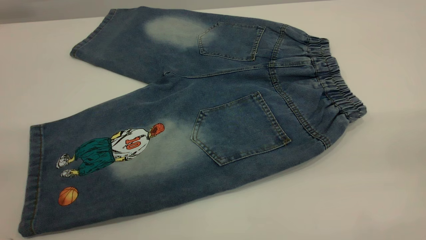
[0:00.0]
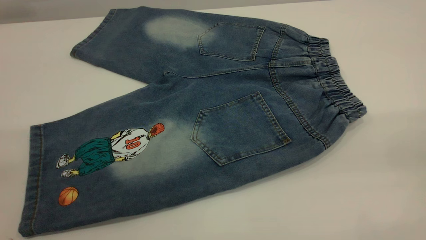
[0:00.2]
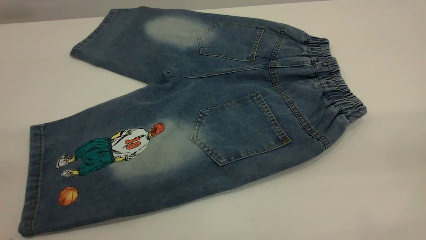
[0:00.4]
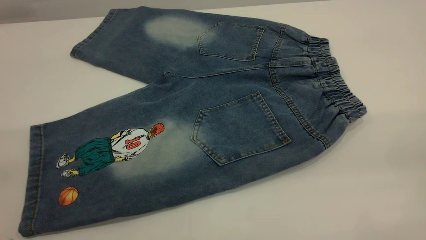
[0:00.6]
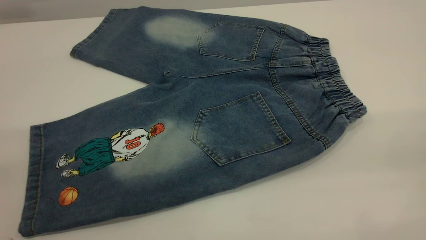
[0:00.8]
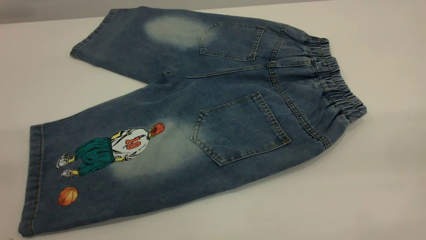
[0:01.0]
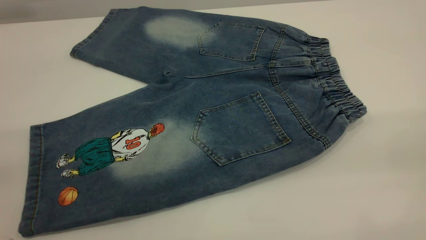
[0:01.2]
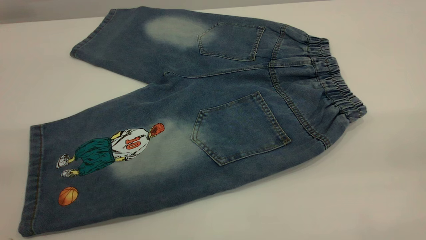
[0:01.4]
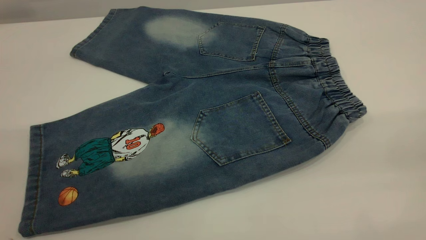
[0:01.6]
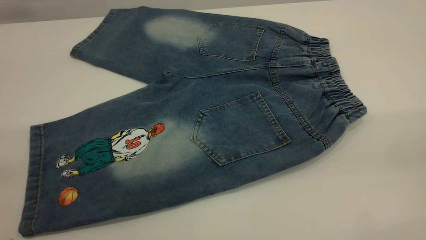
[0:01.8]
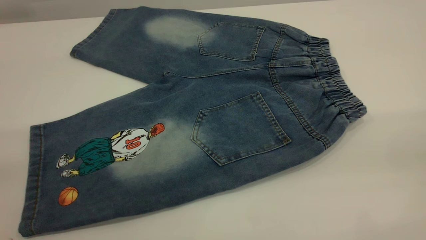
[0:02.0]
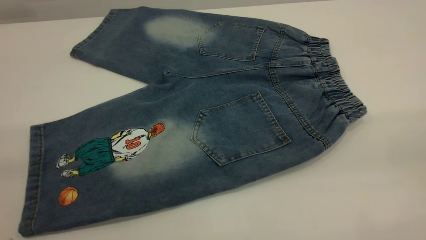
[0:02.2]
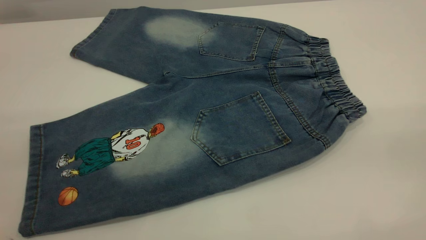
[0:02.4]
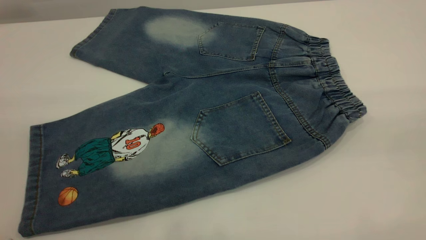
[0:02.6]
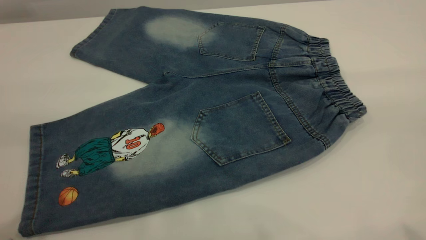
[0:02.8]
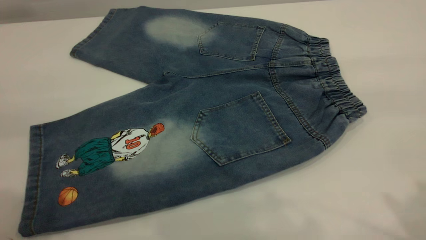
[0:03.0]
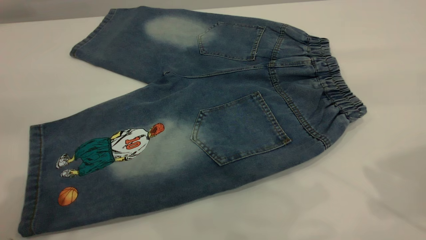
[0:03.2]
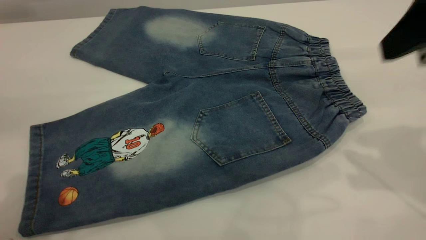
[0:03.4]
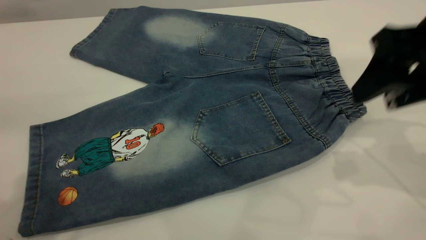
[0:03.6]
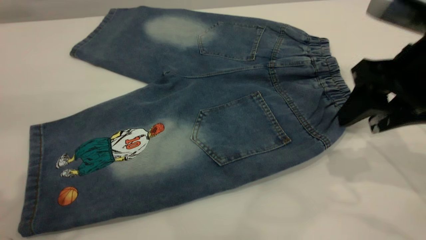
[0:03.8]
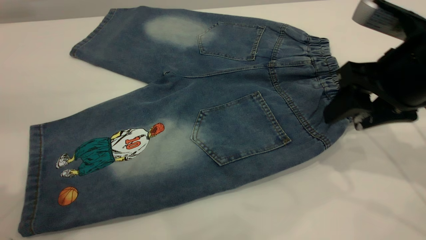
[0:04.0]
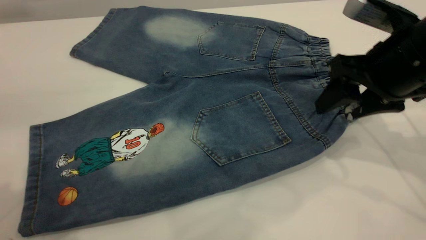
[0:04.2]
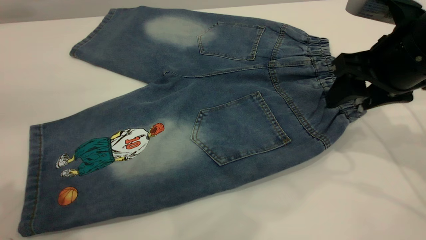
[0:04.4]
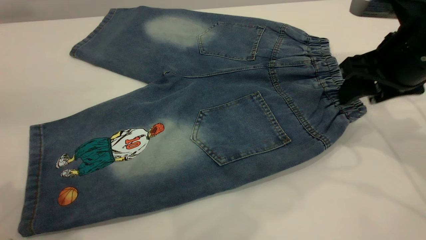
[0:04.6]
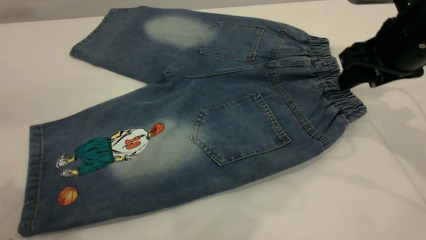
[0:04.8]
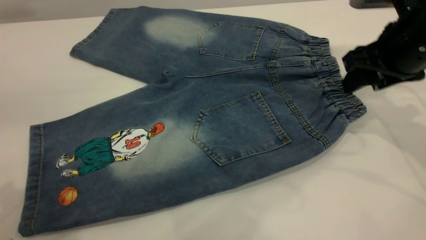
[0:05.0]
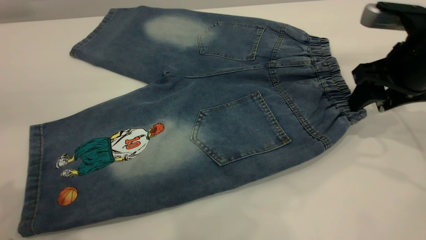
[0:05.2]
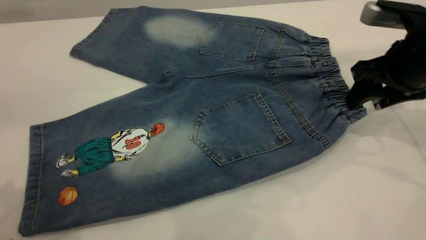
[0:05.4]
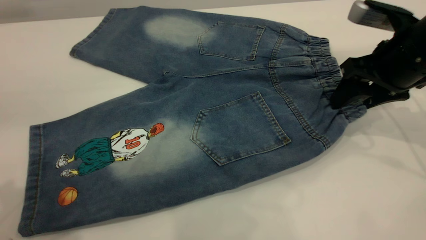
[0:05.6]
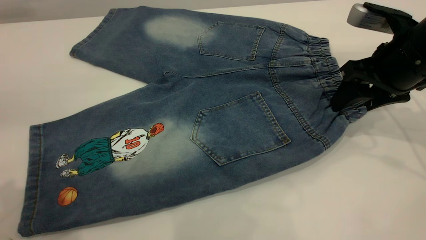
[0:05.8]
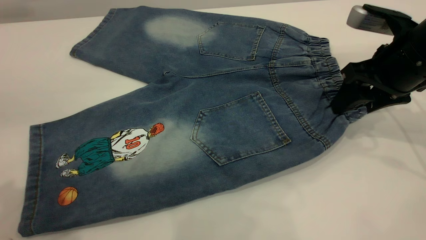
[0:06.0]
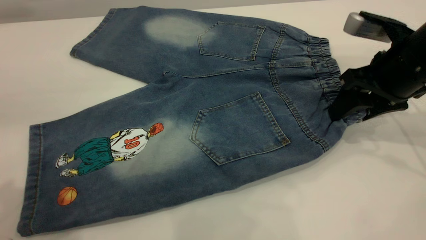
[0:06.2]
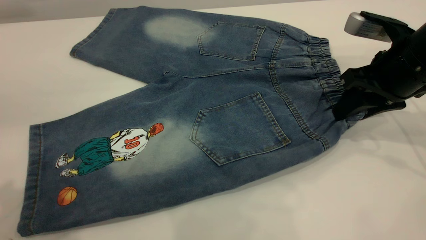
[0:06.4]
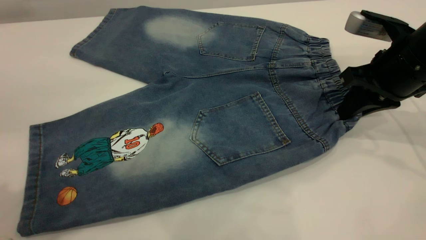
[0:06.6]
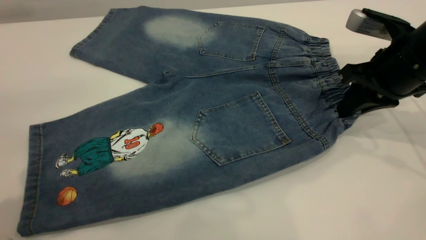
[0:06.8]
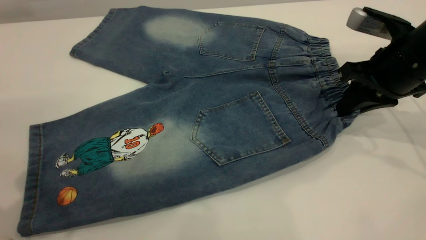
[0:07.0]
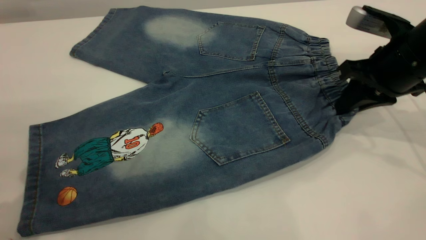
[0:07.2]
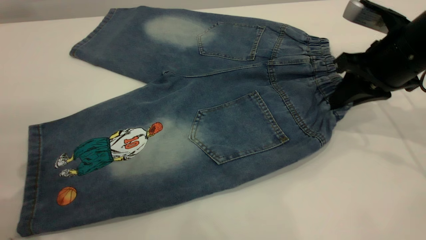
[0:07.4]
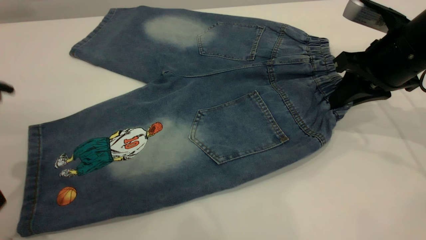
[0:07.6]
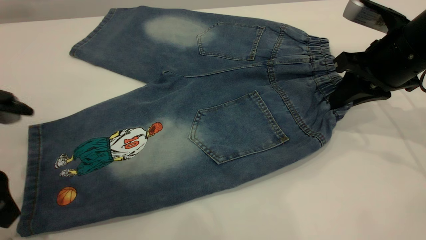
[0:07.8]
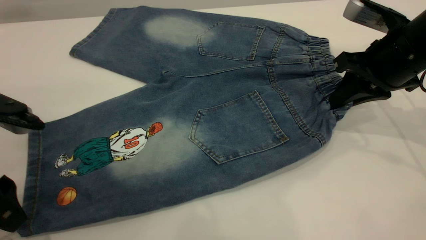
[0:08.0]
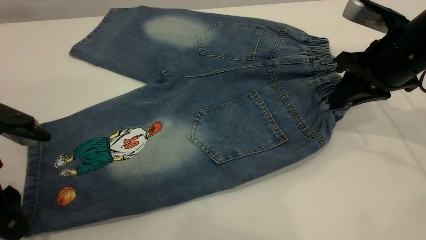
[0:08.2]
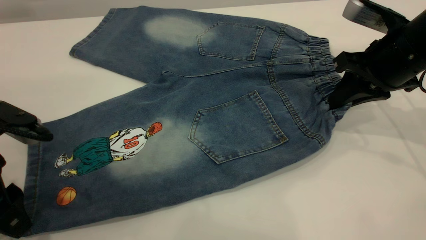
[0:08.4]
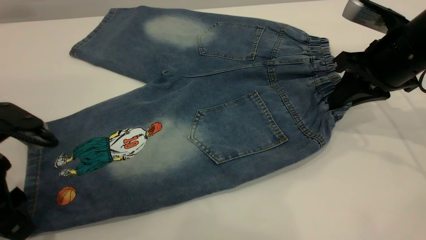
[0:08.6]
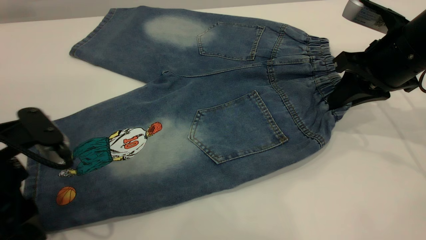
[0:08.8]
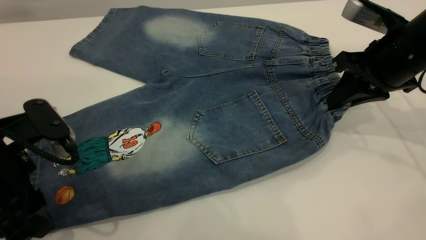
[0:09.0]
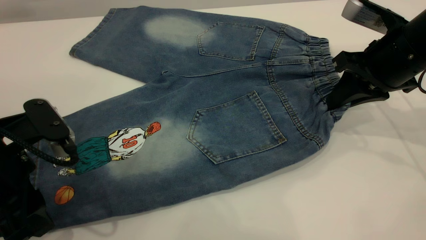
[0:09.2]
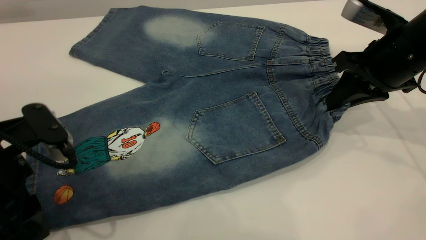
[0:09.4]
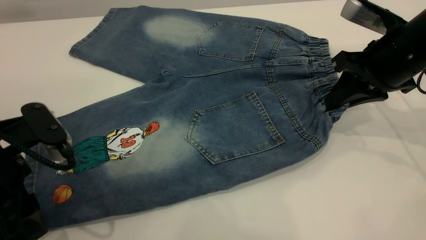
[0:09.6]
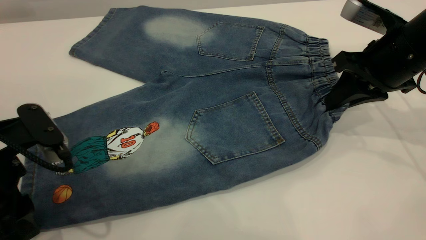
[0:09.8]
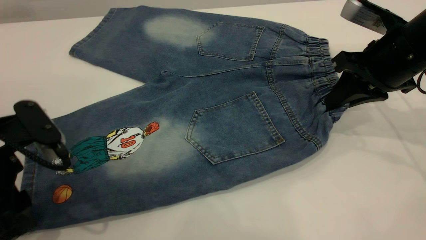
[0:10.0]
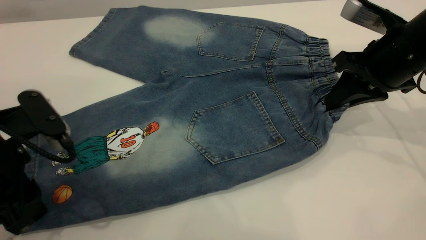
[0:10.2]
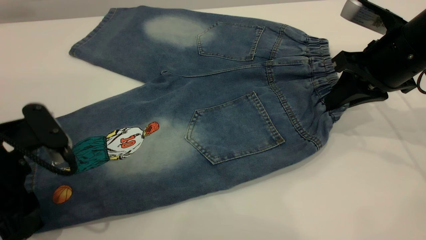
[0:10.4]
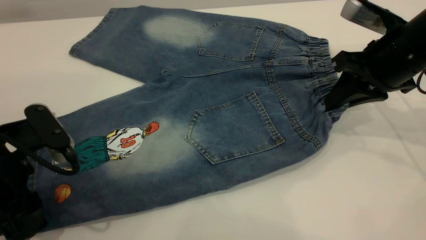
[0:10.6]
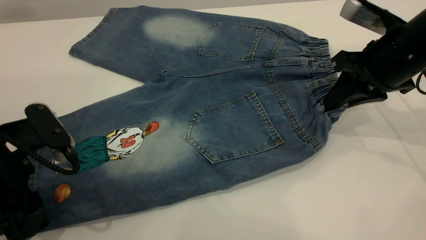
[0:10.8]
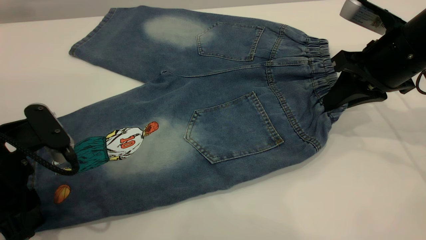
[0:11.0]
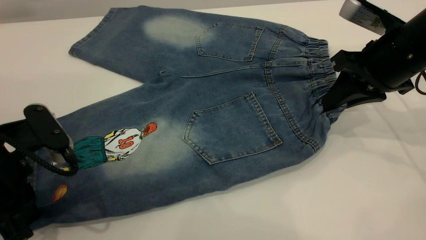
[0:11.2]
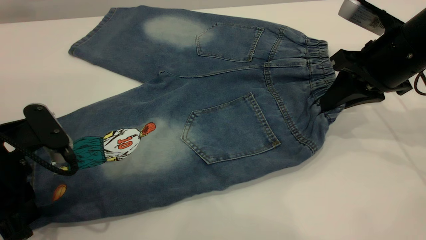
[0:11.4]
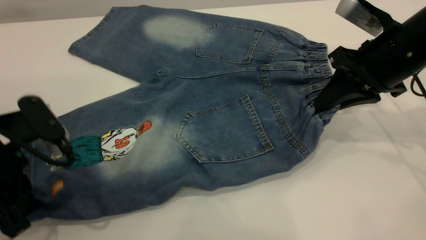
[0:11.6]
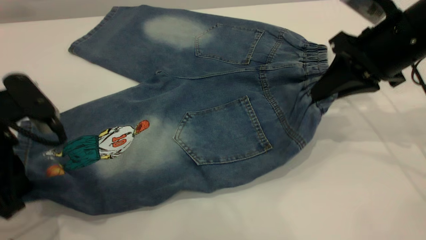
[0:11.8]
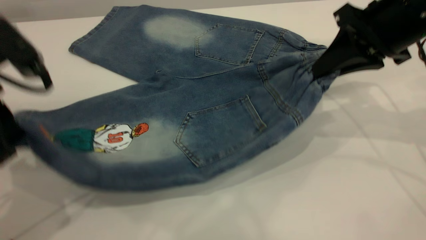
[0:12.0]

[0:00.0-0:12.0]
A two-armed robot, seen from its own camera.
0:00.0 to 0:01.6: Both grippers stay about where they are.
0:03.0 to 0:04.4: The right gripper heads downward and forward, covering roughly 25 cm.
0:04.4 to 0:06.0: The grippers move only a little.
0:06.0 to 0:07.6: The right gripper closes its fingers, while the left gripper goes roughly 15 cm downward.
0:07.6 to 0:09.0: The left gripper ends up some 5 cm from where it was.
0:09.0 to 0:10.4: There are only small adjustments of the grippers.
0:10.4 to 0:12.0: The left gripper goes about 10 cm upward, and closes its fingers; the right gripper shifts about 5 cm upward.

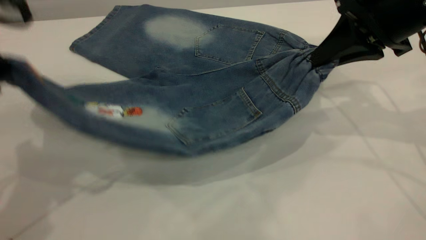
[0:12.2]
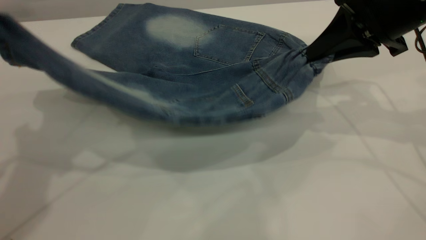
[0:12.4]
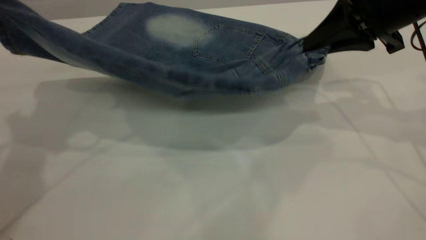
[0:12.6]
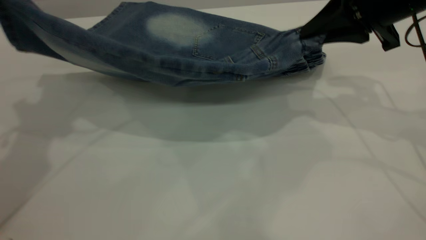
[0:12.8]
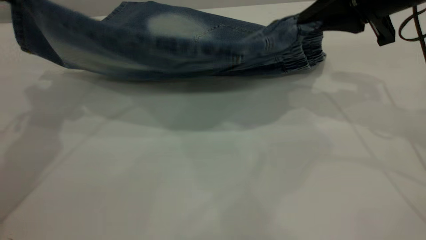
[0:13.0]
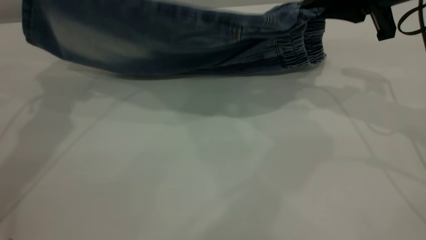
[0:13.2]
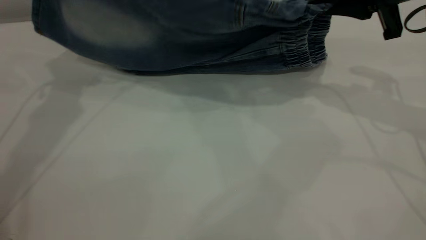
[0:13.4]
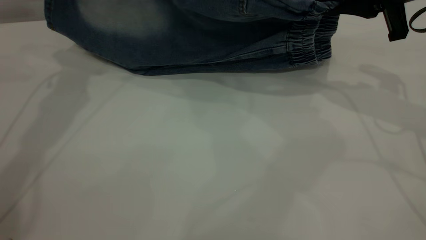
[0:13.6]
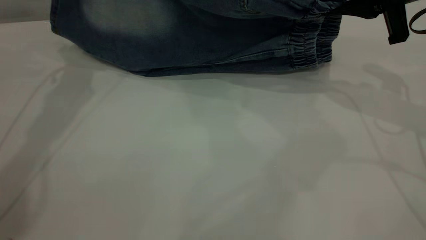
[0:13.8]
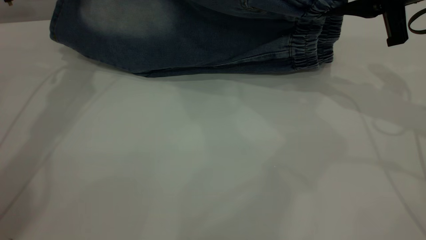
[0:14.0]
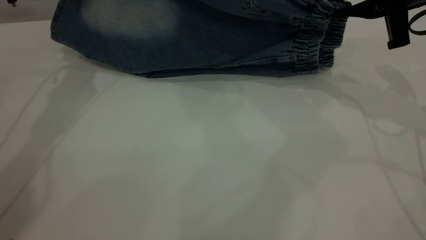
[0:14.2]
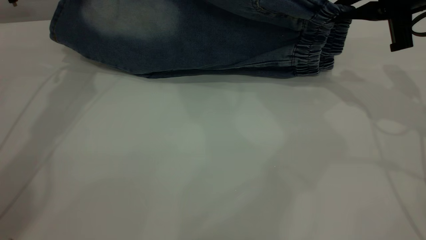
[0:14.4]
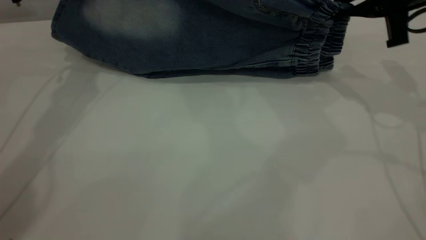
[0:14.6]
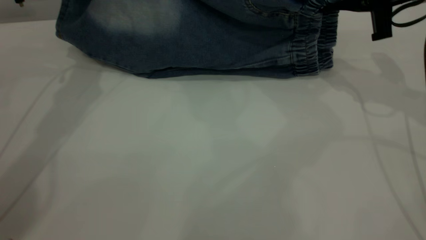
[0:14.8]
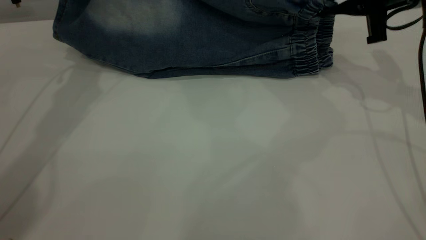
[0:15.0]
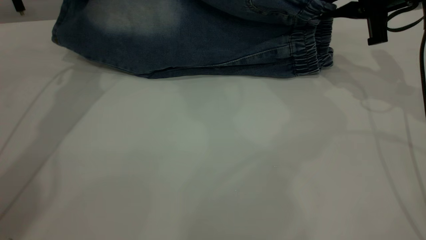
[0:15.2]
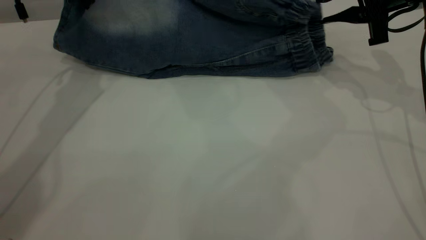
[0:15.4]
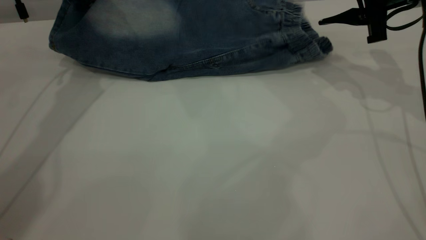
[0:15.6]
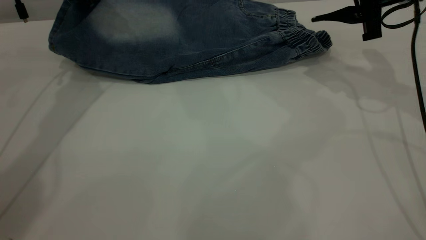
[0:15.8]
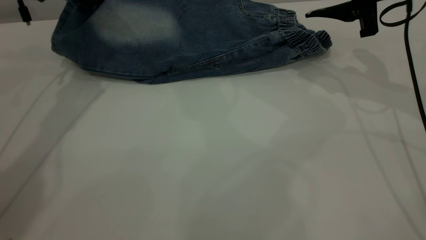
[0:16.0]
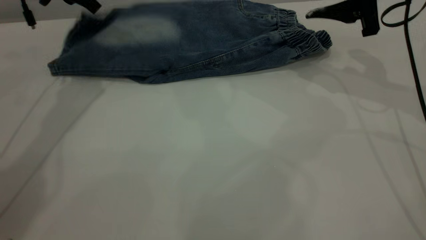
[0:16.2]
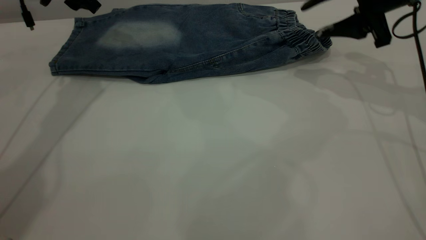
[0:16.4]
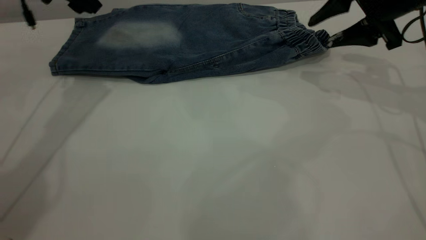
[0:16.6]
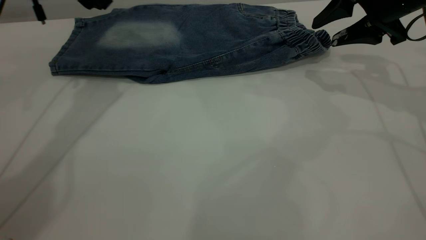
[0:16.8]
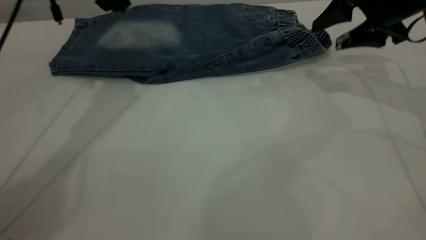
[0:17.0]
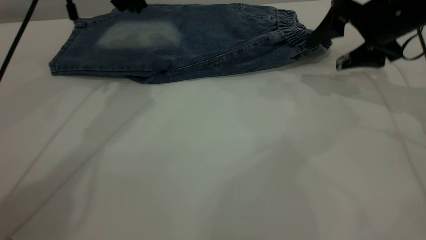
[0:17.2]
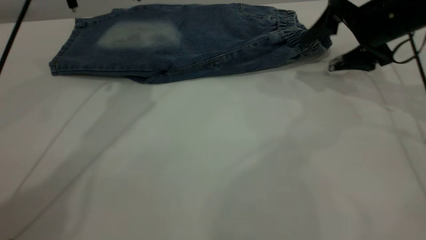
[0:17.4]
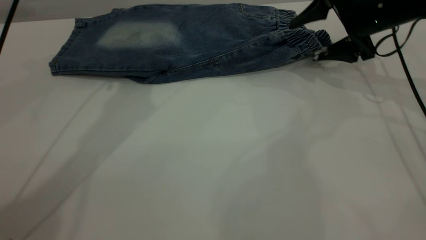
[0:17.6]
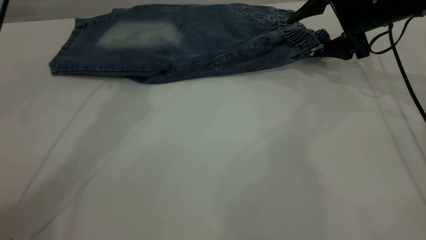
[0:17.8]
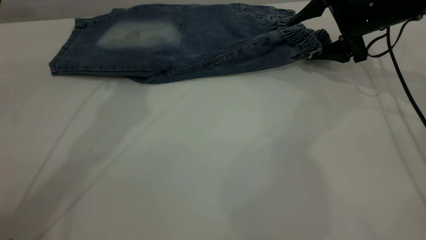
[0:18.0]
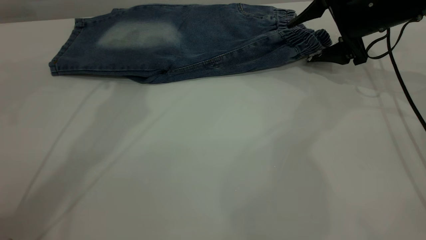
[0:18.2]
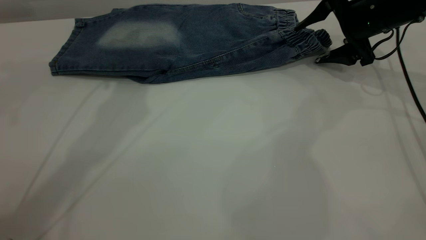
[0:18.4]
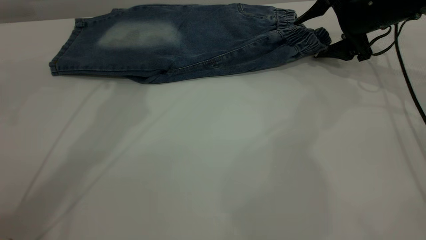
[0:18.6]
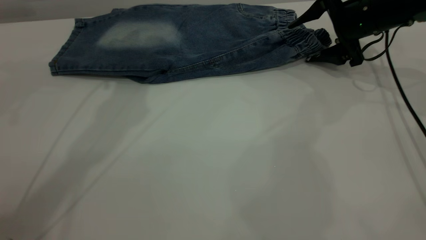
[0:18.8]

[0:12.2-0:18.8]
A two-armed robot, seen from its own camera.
Step, 0:12.2 to 0:16.2: Fold the bottom of the pants upward.
0:12.2 to 0:13.8: The left gripper moves forward, approximately 25 cm.
0:13.8 to 0:15.4: The right gripper shifts by some 5 cm, and opens.
0:15.4 to 0:17.2: The left gripper shifts about 10 cm to the right, and opens its fingers; the right gripper opens its fingers.
0:17.2 to 0:18.8: The left gripper travels upward by roughly 10 cm; the right gripper is displaced forward by about 5 cm.
